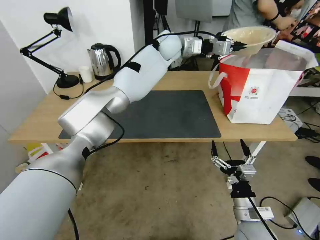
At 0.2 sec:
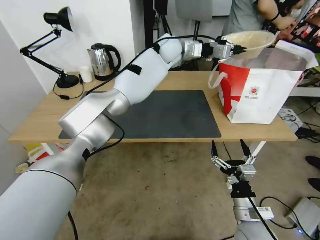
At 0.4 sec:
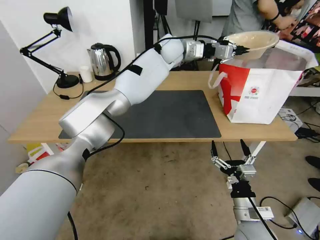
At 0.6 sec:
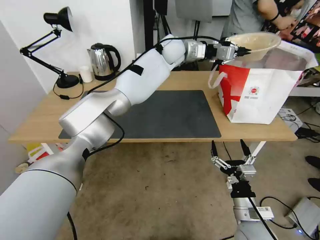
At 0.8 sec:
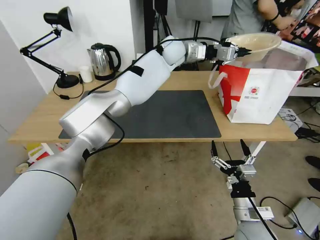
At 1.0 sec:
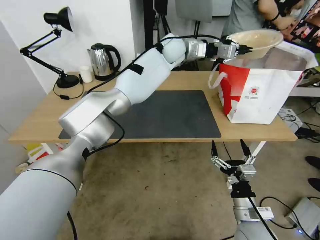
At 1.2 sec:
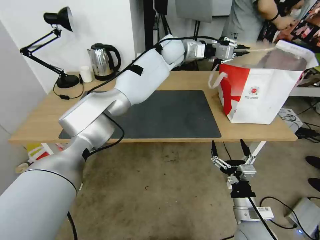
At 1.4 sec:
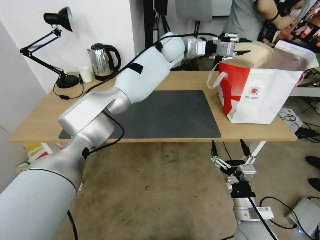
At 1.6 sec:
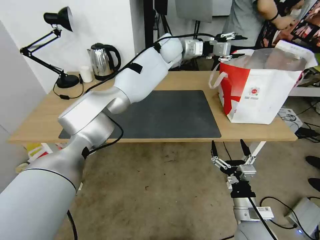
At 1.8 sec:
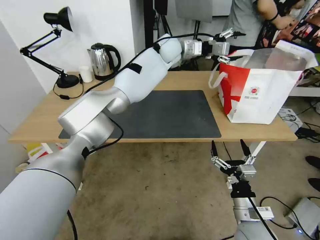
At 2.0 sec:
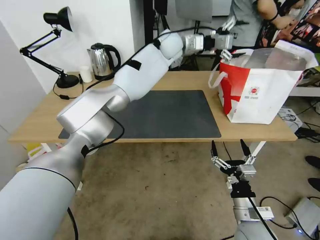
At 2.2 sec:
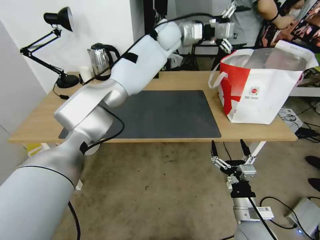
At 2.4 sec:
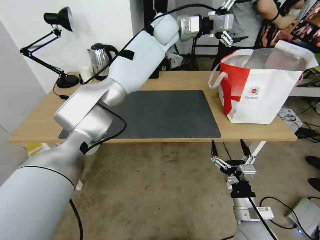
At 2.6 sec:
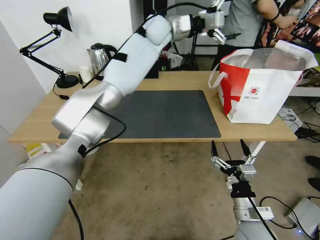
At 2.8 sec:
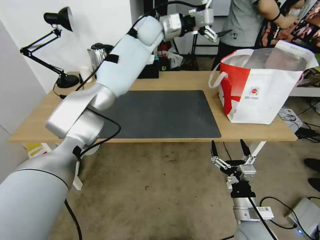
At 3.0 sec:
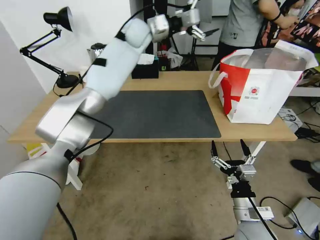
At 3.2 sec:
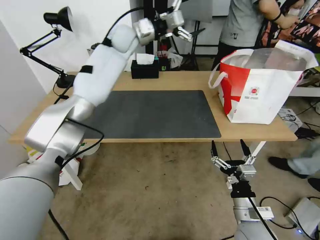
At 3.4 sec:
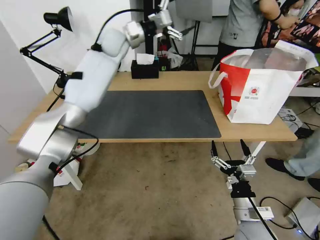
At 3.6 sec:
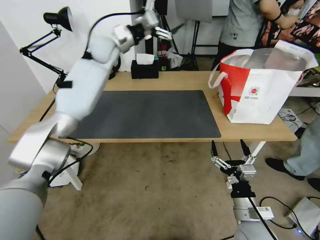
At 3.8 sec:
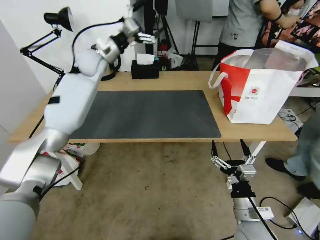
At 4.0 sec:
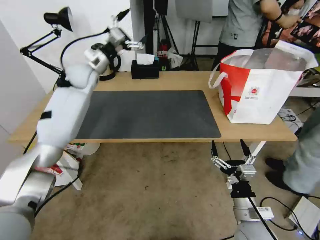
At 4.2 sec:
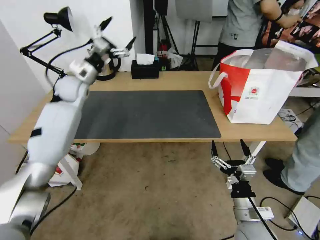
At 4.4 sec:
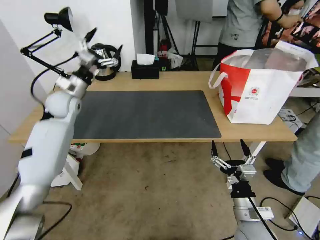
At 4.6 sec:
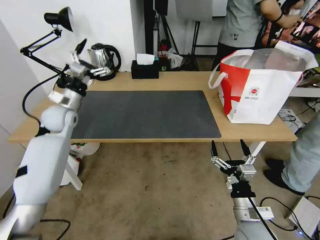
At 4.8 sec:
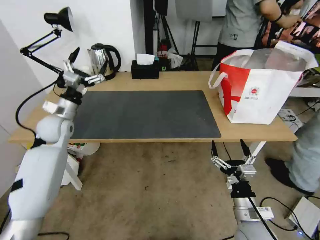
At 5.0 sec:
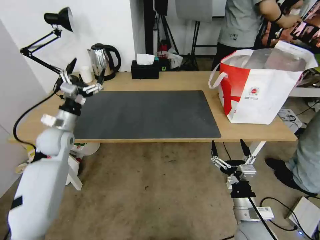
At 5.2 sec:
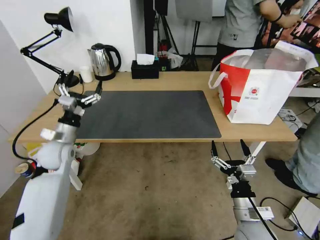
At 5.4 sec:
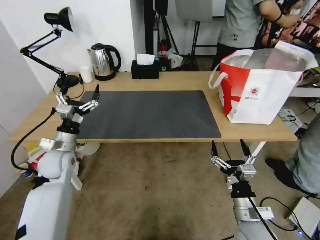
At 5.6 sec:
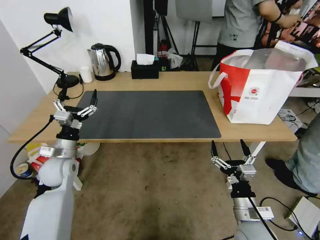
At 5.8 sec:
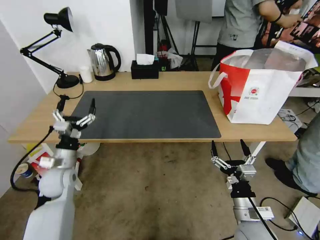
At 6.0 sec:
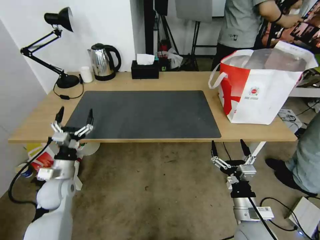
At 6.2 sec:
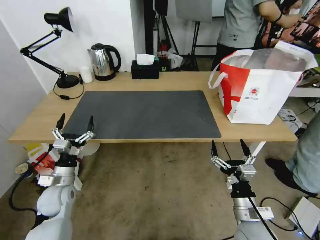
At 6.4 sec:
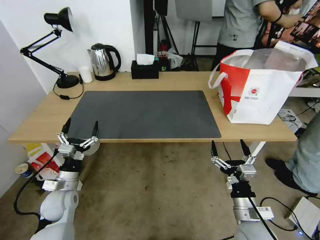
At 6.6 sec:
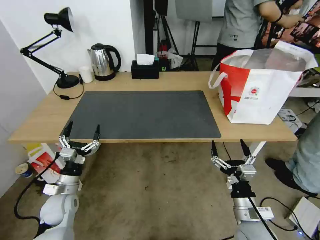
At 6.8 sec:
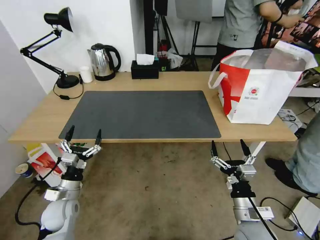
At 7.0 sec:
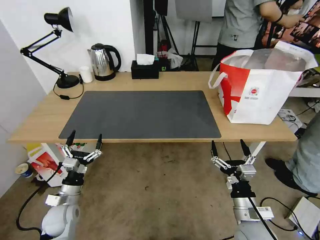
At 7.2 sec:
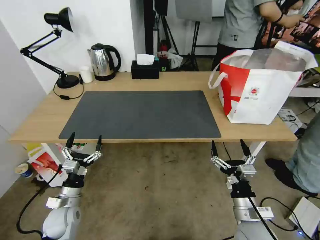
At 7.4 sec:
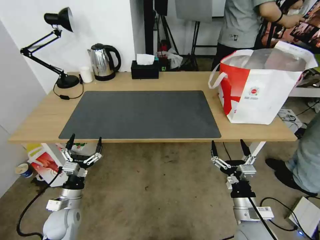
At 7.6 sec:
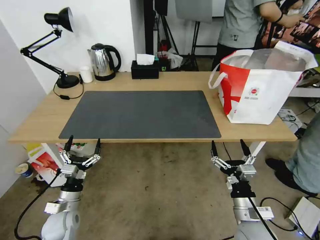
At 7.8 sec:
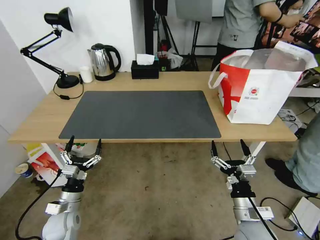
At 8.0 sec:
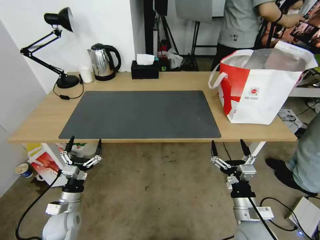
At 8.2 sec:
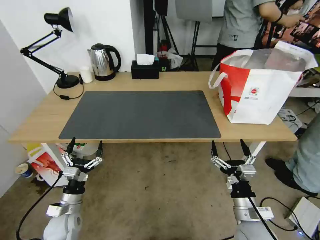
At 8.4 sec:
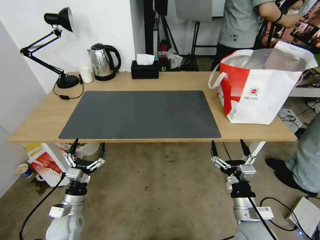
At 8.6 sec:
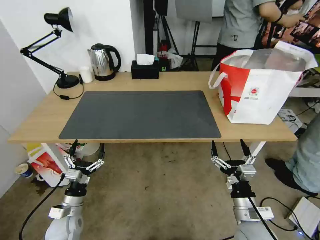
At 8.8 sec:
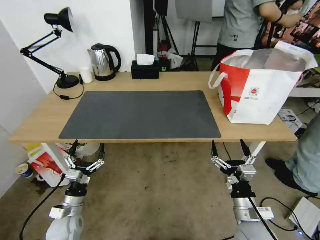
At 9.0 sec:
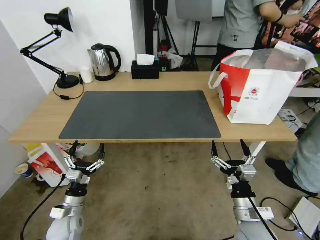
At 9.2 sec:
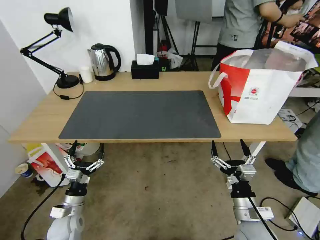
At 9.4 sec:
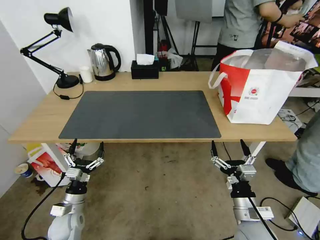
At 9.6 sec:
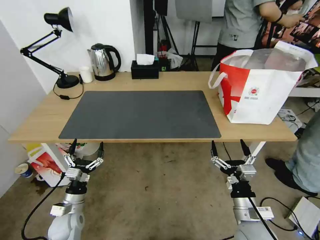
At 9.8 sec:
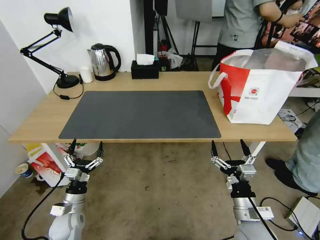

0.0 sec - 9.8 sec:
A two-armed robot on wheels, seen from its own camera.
Task of the whole recording: Pick up the trash from the table and place it into the takeout bag.
0.0 sec - 1.4 sec: The grippers make only small movements.
1.4 sec - 2.8 sec: The left gripper goes about 10 cm to the left, and opens up.
2.8 sec - 4.2 sec: The left gripper heads to the left and downward, covering about 30 cm.
4.2 sec - 5.6 sec: The left gripper is displaced backward and downward by approximately 25 cm.
5.6 sec - 7.0 sec: The left gripper goes some 15 cm downward and backward.
7.0 sec - 9.8 sec: The grippers stay close to where they were, moving slightly.

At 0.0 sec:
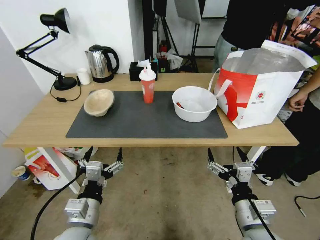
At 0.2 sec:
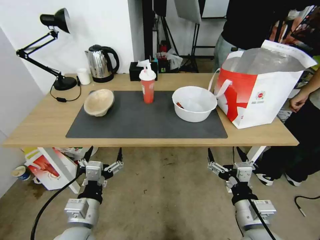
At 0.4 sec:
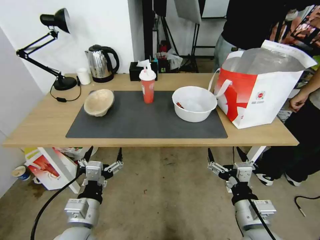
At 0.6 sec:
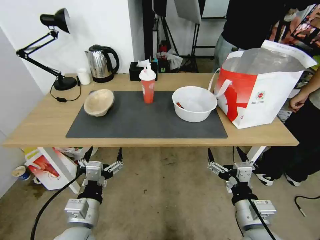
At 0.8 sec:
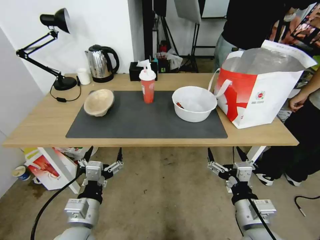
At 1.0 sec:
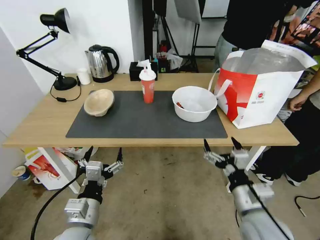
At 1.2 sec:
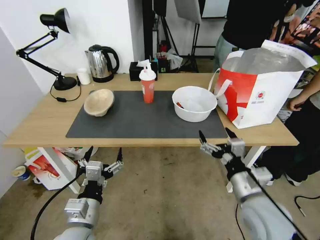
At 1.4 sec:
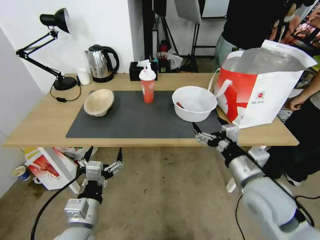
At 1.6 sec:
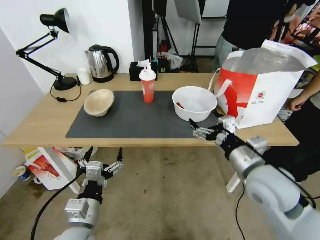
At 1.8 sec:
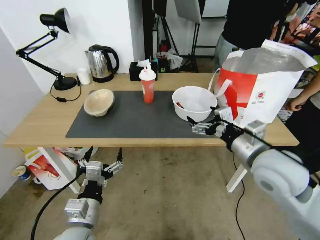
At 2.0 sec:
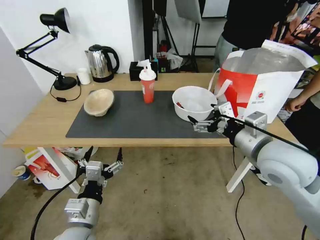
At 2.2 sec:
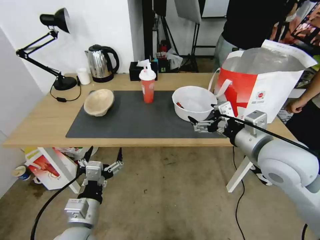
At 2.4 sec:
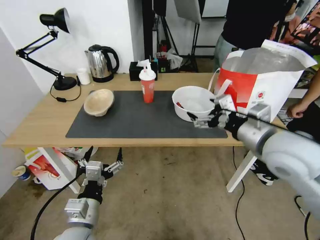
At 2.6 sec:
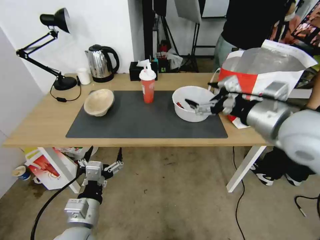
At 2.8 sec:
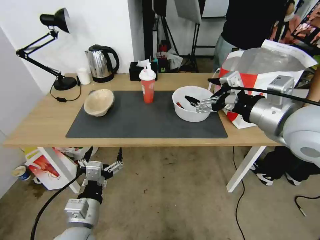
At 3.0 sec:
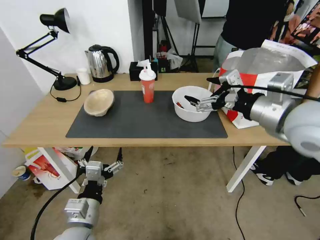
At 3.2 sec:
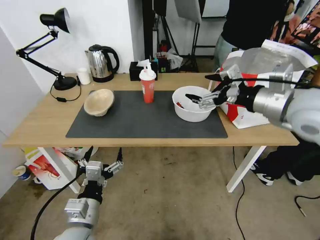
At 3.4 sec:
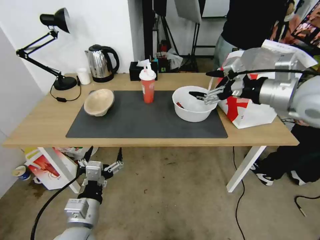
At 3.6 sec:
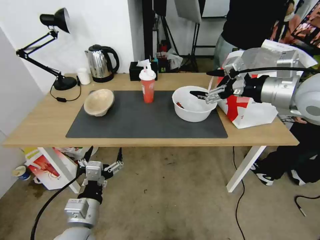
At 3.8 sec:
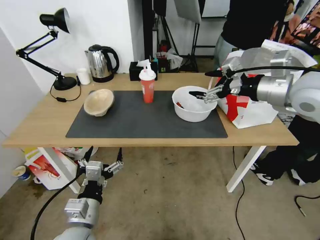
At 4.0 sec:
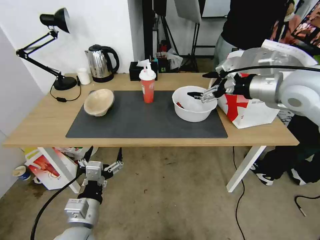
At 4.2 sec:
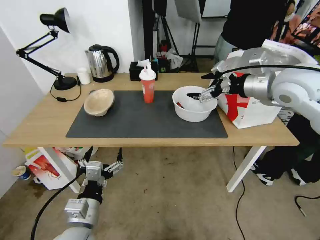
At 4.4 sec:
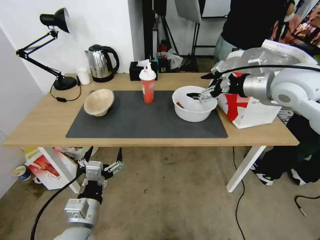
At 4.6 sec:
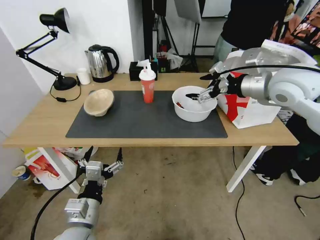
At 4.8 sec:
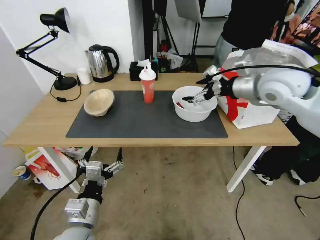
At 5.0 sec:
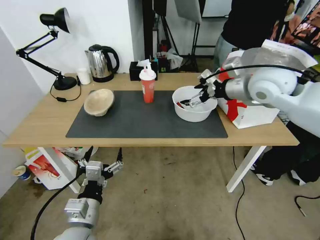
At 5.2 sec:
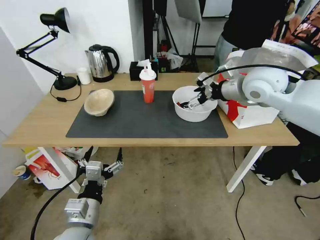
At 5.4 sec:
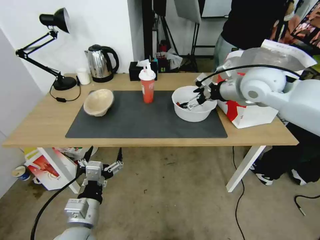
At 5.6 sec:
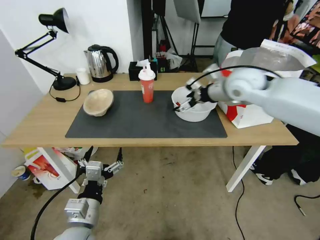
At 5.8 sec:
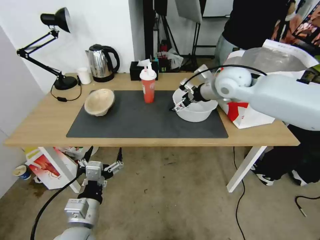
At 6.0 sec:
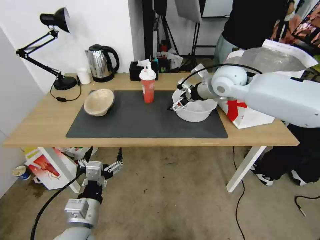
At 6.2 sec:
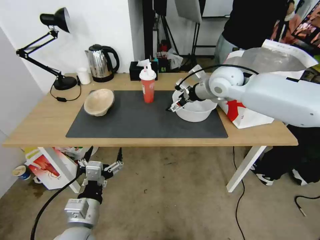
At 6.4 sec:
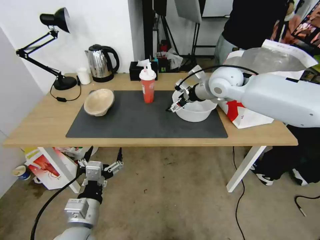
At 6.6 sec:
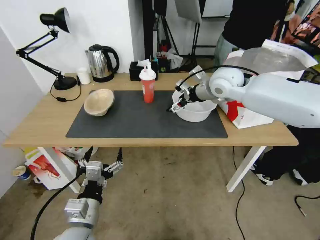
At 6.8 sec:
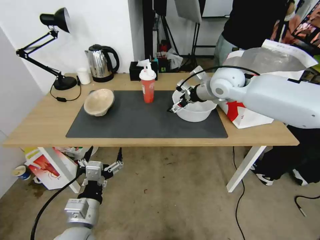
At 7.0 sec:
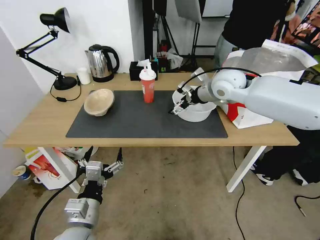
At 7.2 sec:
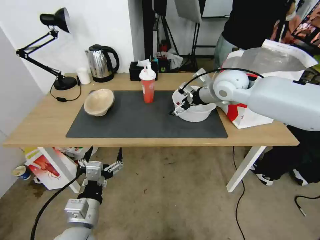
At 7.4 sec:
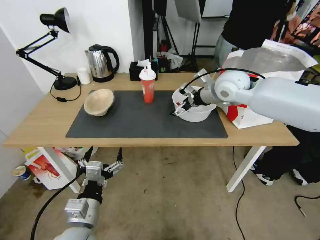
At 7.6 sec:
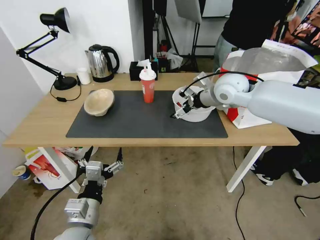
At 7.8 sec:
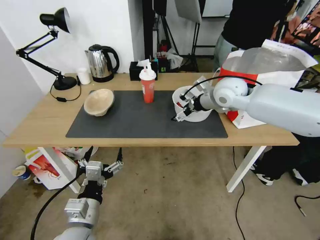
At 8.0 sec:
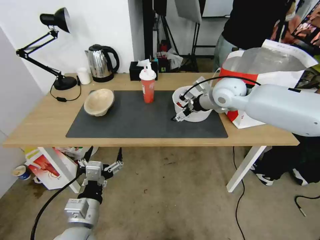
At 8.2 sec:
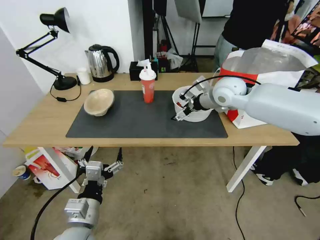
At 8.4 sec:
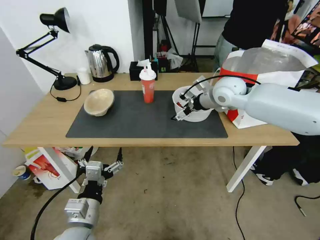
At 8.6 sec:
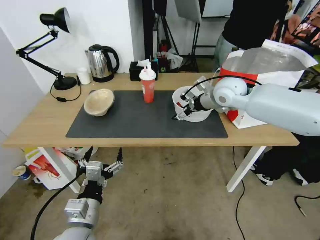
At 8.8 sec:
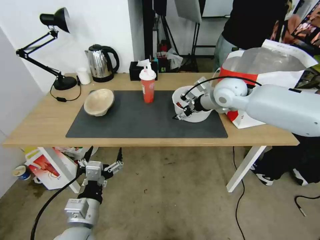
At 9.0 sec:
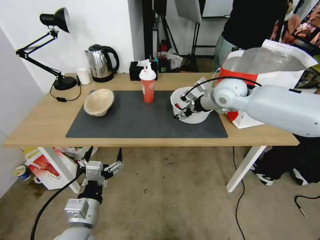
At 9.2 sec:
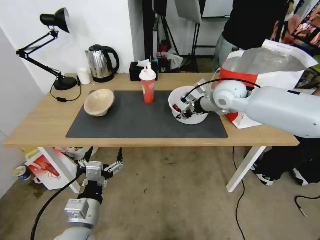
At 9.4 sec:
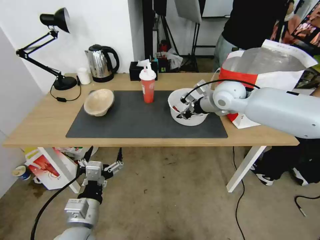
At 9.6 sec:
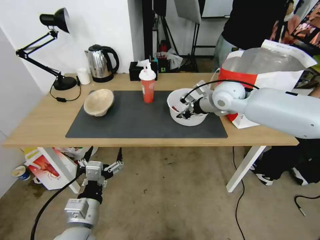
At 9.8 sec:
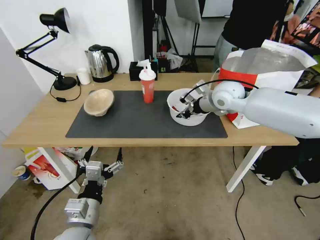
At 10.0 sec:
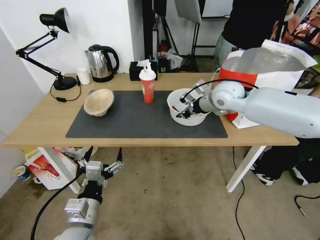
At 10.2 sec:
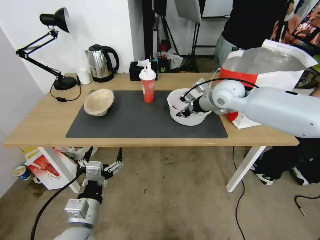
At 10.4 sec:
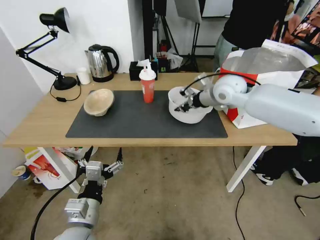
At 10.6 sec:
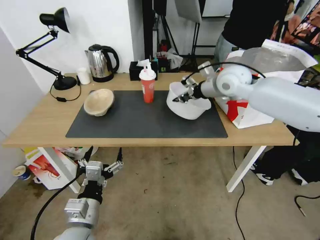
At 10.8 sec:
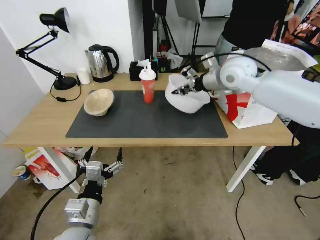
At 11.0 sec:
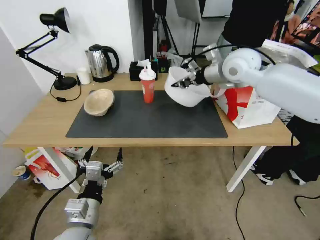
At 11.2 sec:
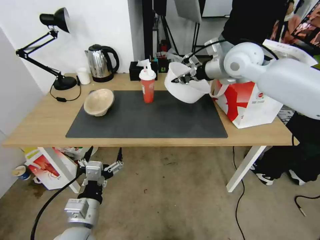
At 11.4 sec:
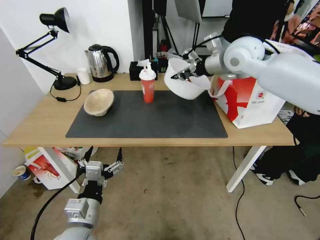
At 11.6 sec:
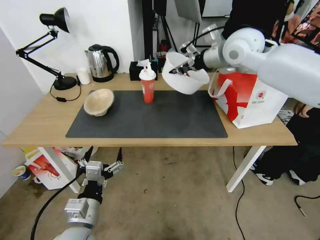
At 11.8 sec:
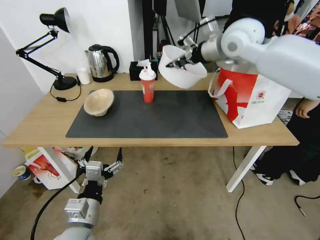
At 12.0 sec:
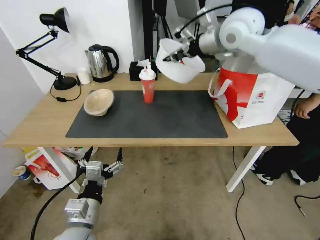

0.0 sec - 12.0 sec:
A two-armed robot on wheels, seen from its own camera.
Task of the whole recording: Pick up the trash from the table and place it into the takeout bag.
1.6 sec - 3.0 sec: The right gripper travels upward by roughly 15 cm.
3.0 sec - 4.4 sec: The right gripper travels forward by roughly 10 cm.
4.4 sec - 6.0 sec: The right gripper shifts approximately 15 cm forward, to the left and downward.
6.0 sec - 7.6 sec: The grippers move only a little.
7.6 sec - 9.0 sec: The right gripper closes up.
9.0 sec - 10.4 sec: The right gripper closes its fingers.
10.4 sec - 12.0 sec: The right gripper heads upward, covering approximately 15 cm.
